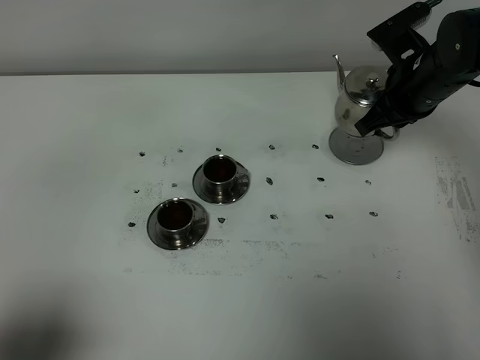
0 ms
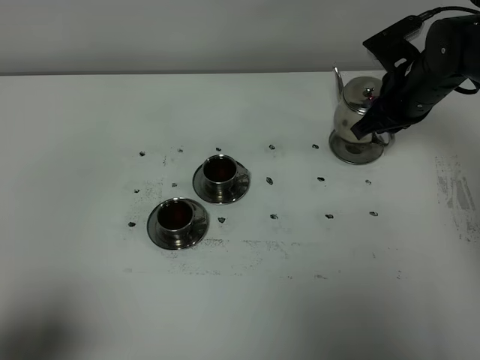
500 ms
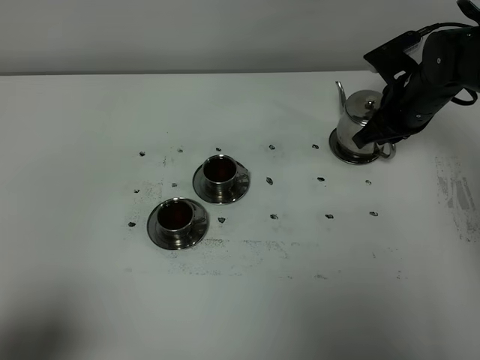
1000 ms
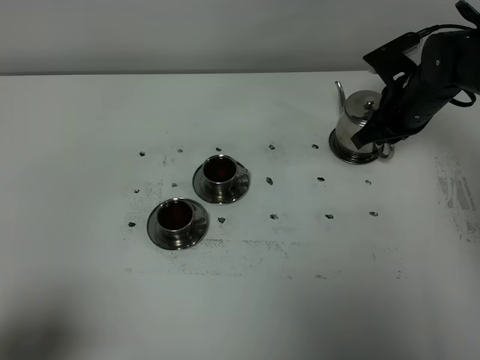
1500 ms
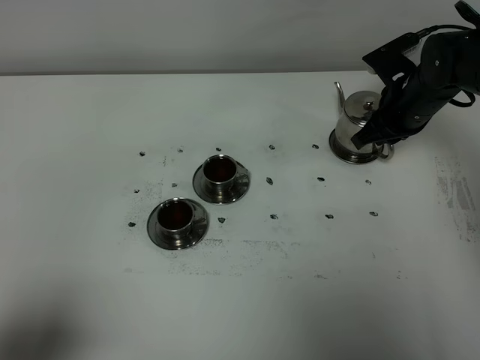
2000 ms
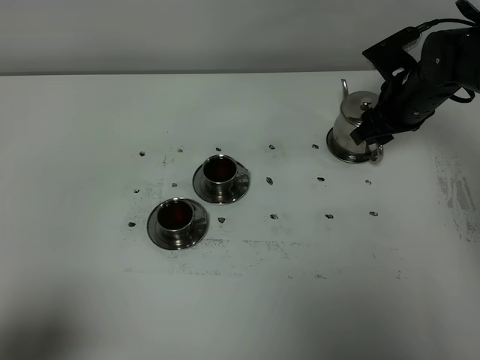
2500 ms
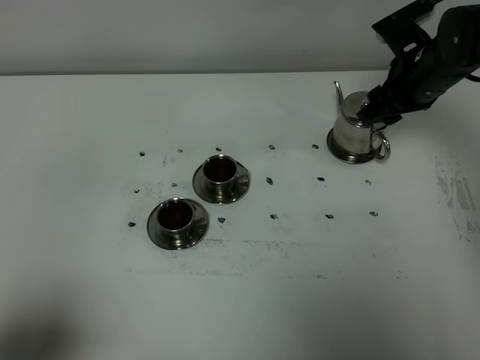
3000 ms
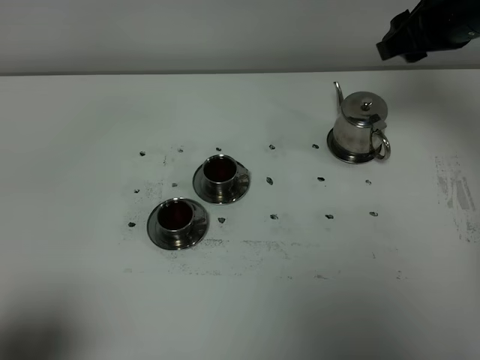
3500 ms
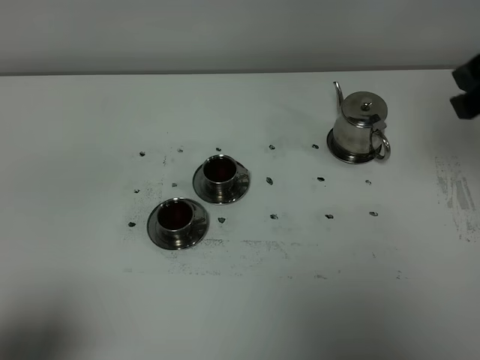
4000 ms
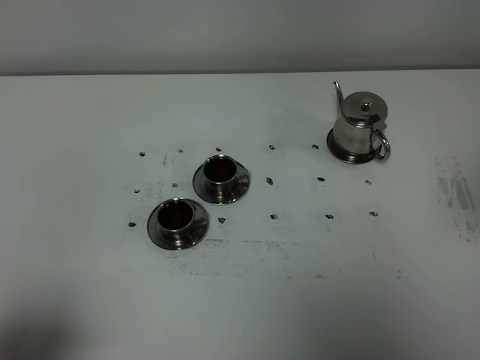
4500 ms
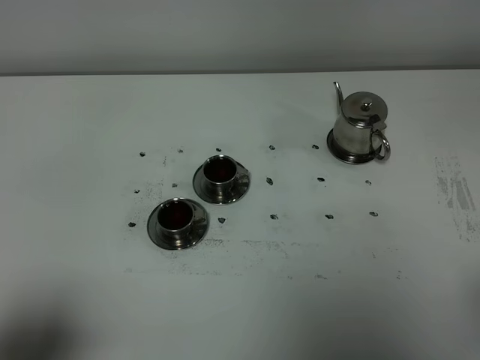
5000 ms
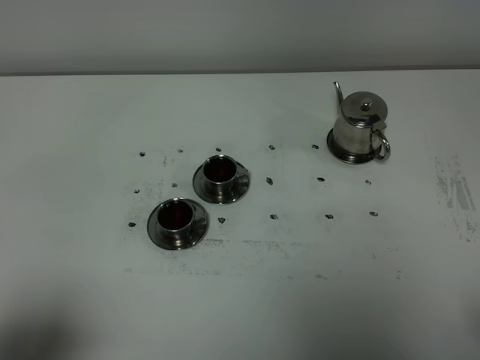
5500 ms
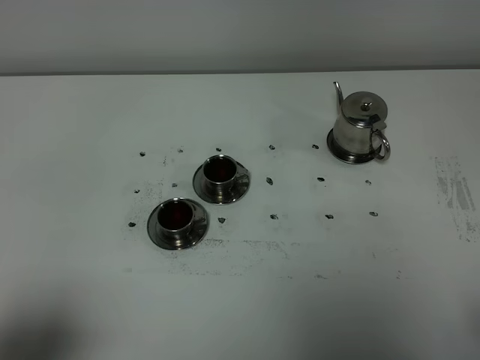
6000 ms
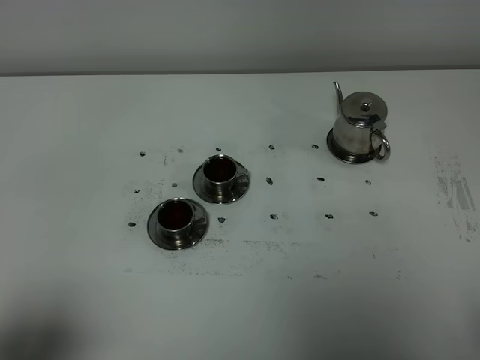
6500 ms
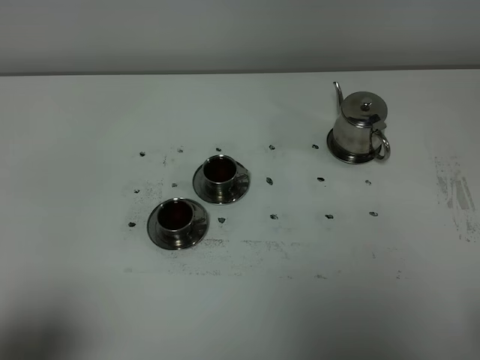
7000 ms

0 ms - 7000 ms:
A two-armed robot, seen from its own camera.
Task of the whole recording: grasp the stainless steel teapot and pour the tea into the two stainless steel teacups one by one, put the stainless steel teapot back in its original place.
0 ms - 2000 ms: The right gripper heads downward, covering approximately 5 cm.
2000 ms - 3500 ms: The right gripper shifts about 15 cm upward, and opens its fingers.
3500 ms - 5000 ms: The right gripper moves backward, roughly 35 cm.
